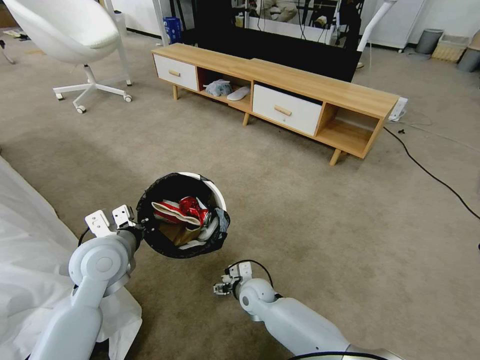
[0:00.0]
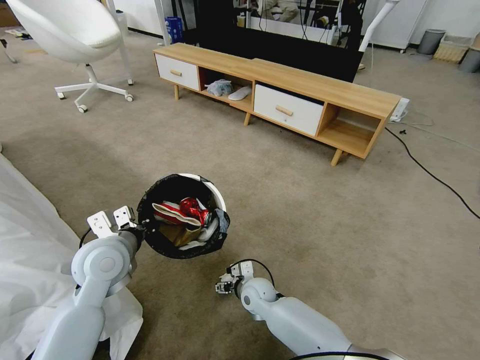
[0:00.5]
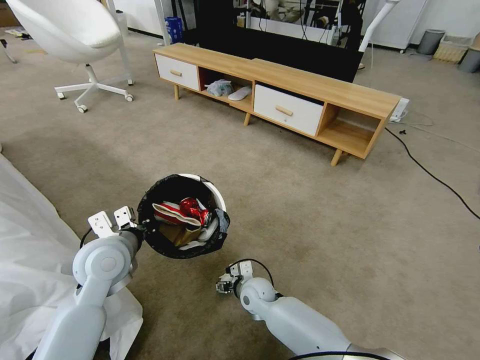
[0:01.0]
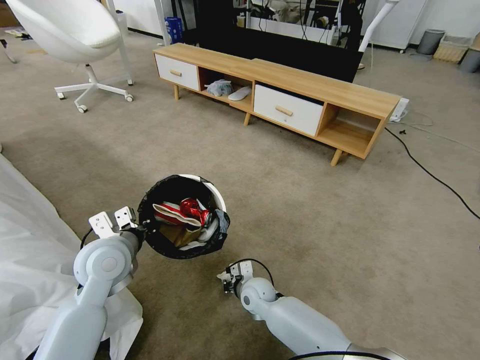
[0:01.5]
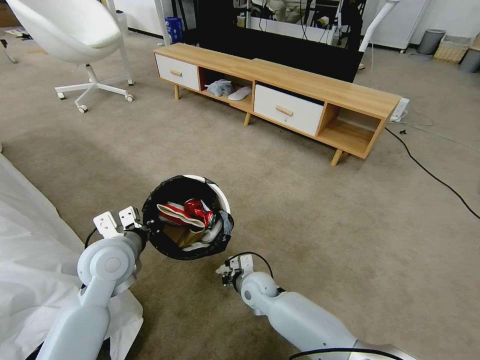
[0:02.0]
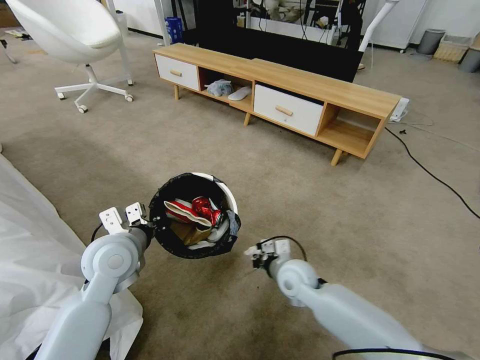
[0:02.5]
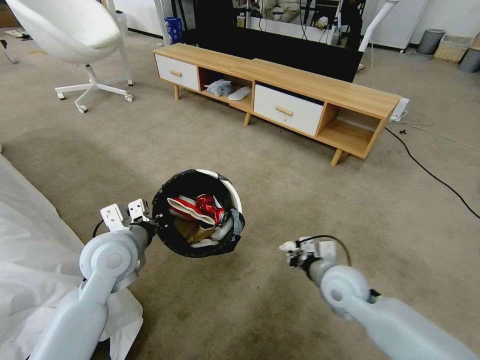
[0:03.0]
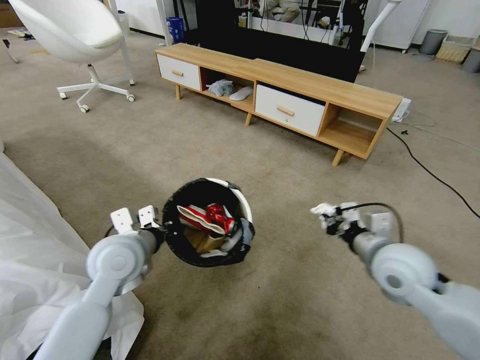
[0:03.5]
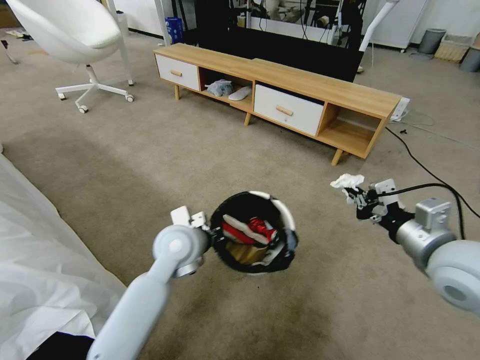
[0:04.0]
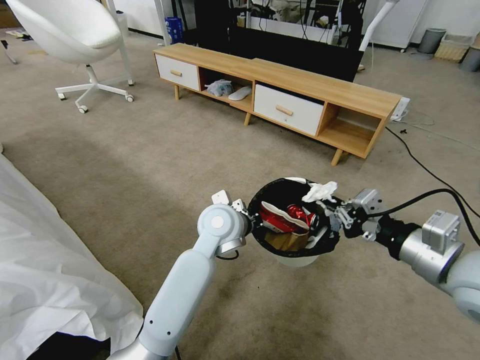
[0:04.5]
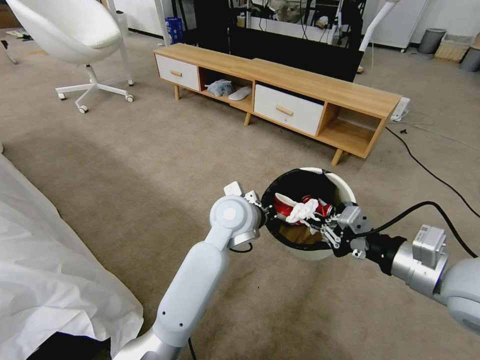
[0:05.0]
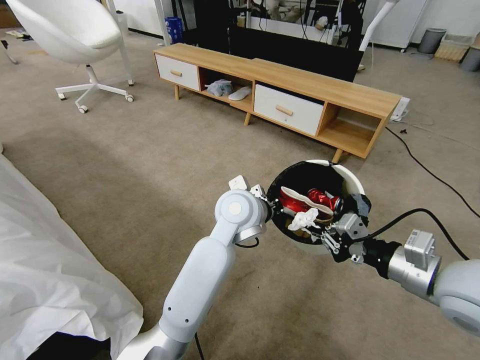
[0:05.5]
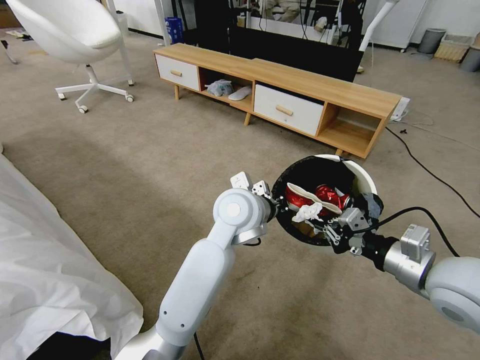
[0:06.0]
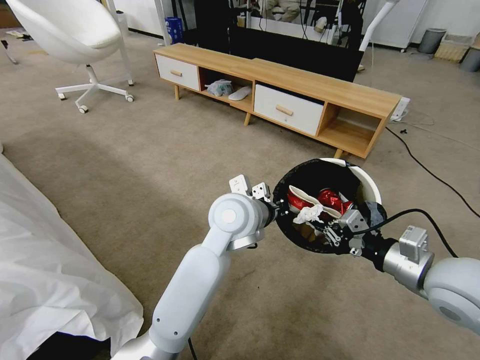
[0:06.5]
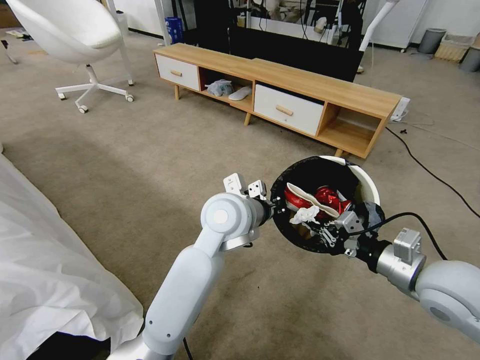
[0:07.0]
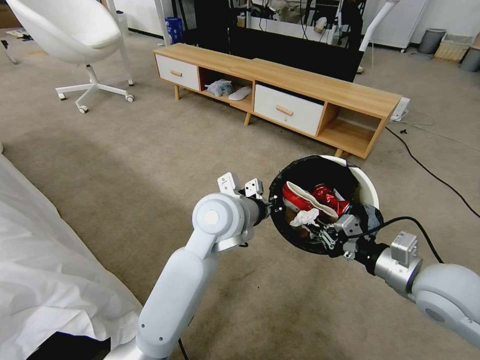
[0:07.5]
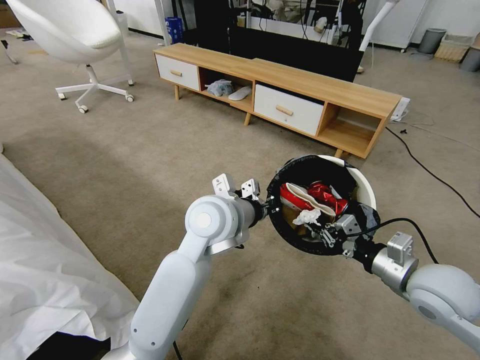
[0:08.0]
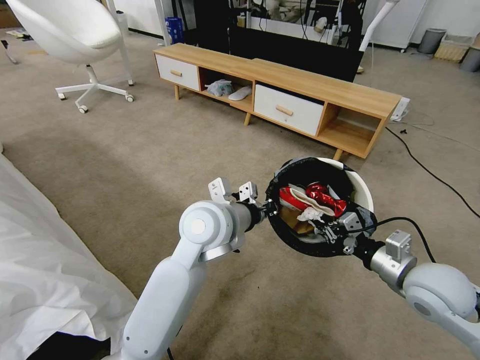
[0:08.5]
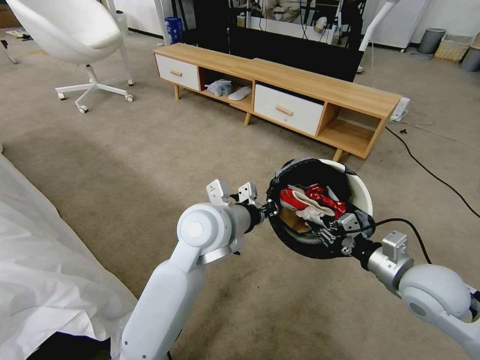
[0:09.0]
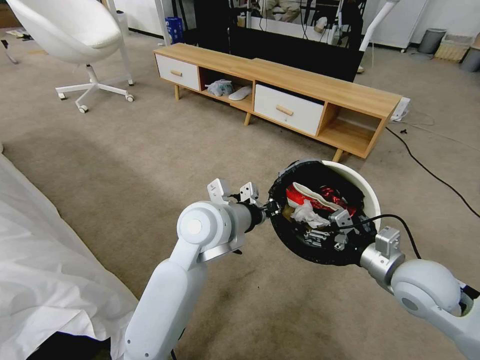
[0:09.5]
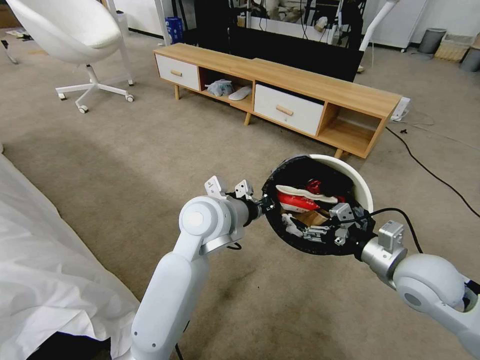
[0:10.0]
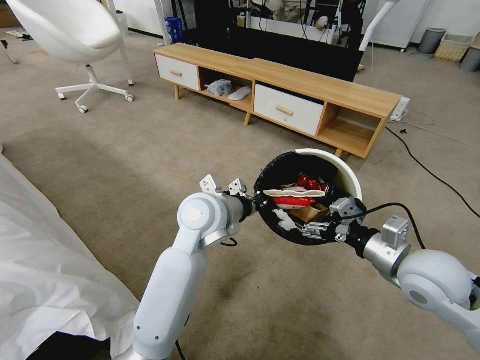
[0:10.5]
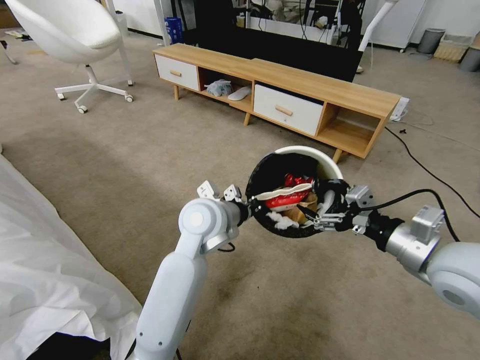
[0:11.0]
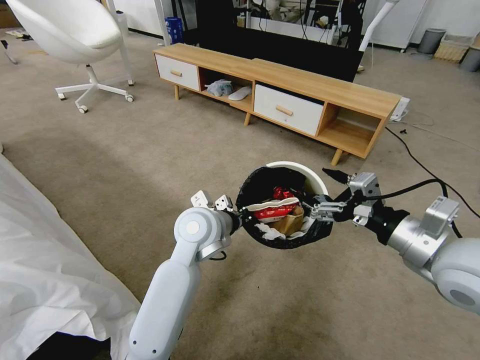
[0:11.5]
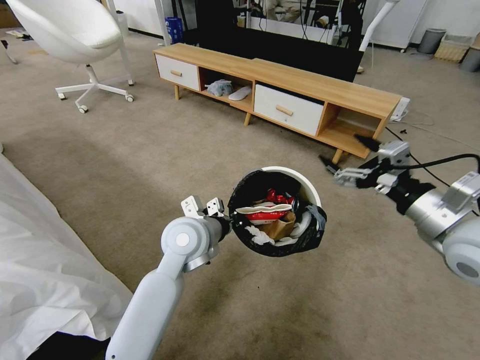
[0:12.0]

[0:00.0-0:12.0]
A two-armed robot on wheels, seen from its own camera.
Task of the whole recording: Pick up the trash bin and place the garbage on the floor into it.
0:00.0 to 0:02.0: The right gripper closes its fingers.
0:02.0 to 0:04.0: The right gripper heads upward and to the right, covering approximately 40 cm; the left gripper travels to the right by some 15 cm.
0:04.0 to 0:06.0: The left gripper goes about 15 cm to the right and upward.
0:06.0 to 0:08.0: The right gripper goes roughly 5 cm downward. The left gripper ends up some 5 cm from where it was.
0:08.0 to 0:10.0: The right gripper opens.
0:10.0 to 0:12.0: The right gripper is displaced upward by approximately 10 cm. Meanwhile the left gripper heads downward, covering roughly 5 cm.

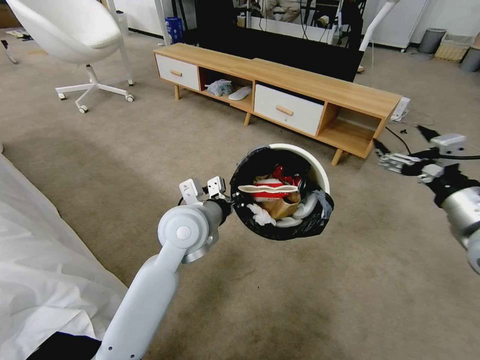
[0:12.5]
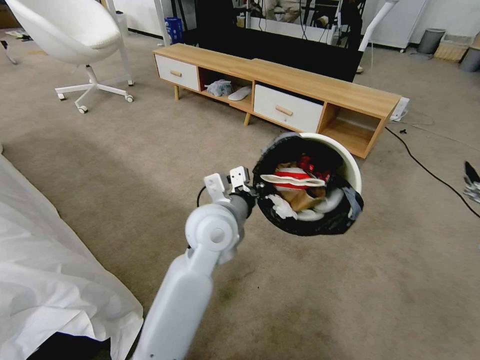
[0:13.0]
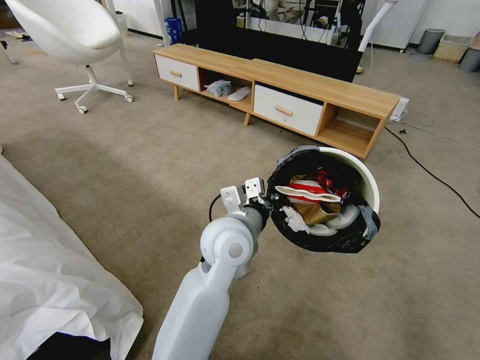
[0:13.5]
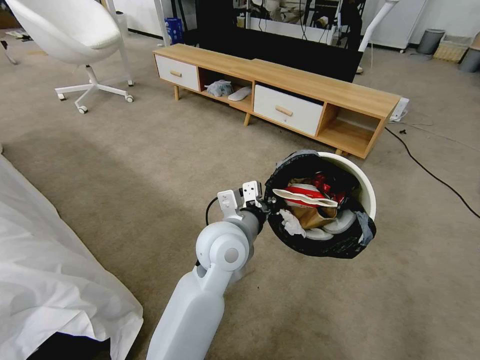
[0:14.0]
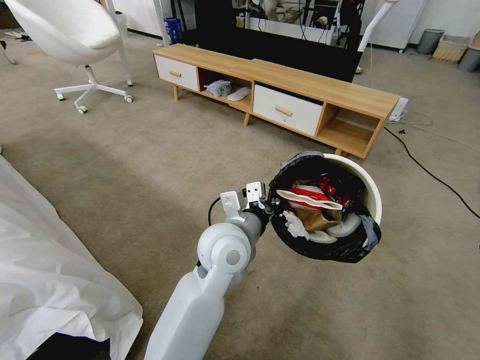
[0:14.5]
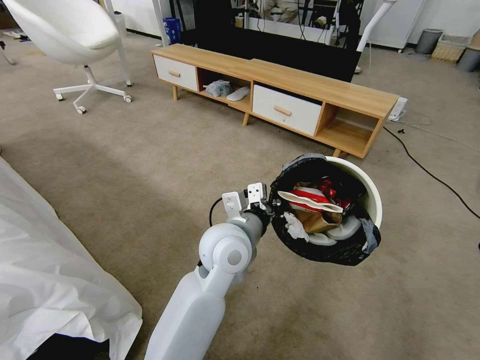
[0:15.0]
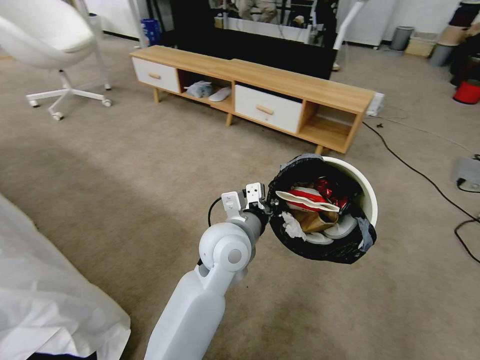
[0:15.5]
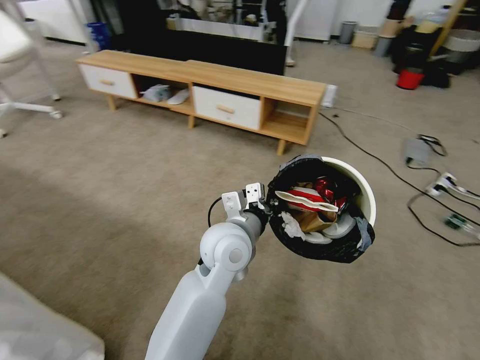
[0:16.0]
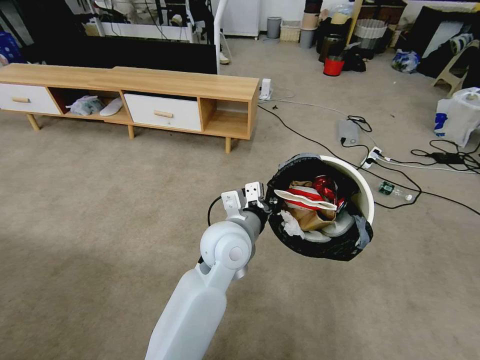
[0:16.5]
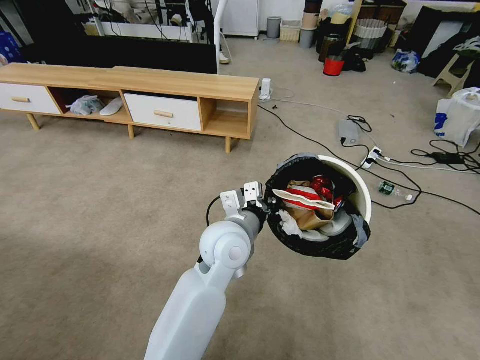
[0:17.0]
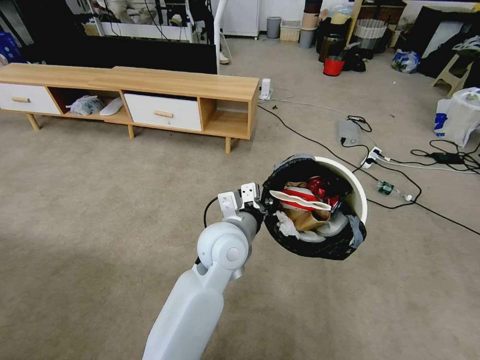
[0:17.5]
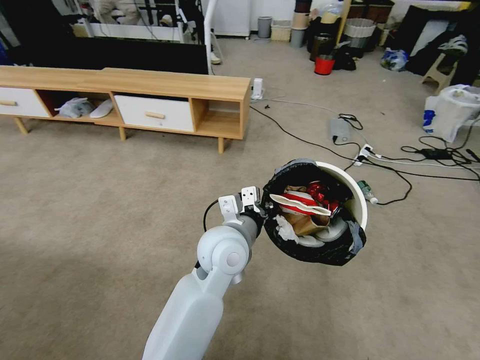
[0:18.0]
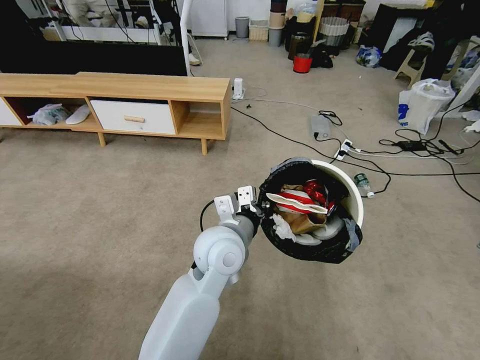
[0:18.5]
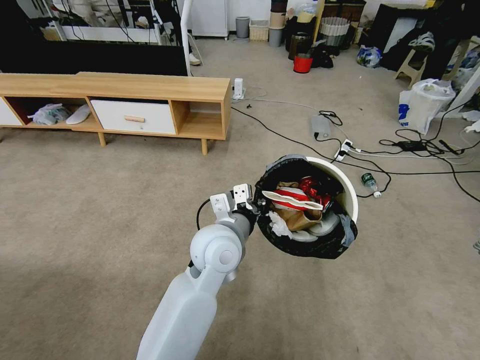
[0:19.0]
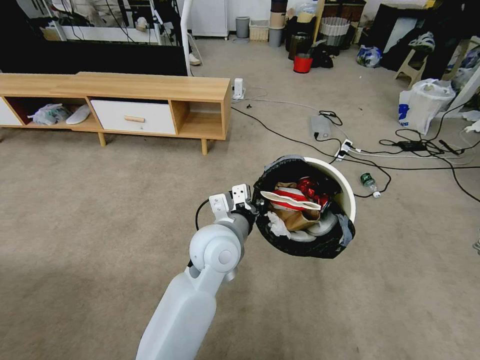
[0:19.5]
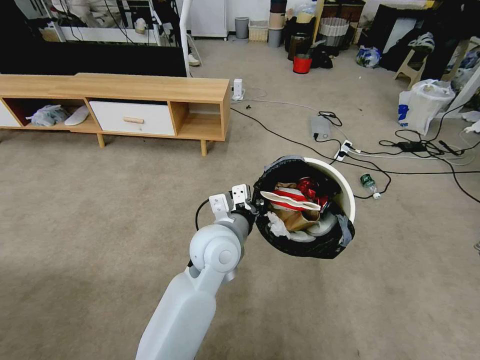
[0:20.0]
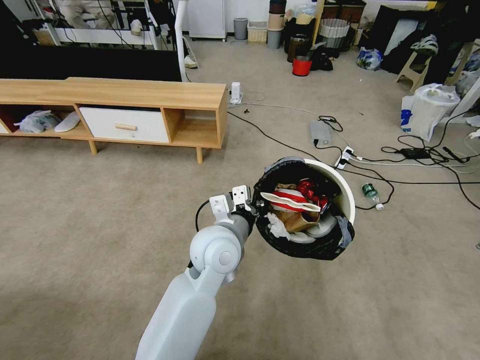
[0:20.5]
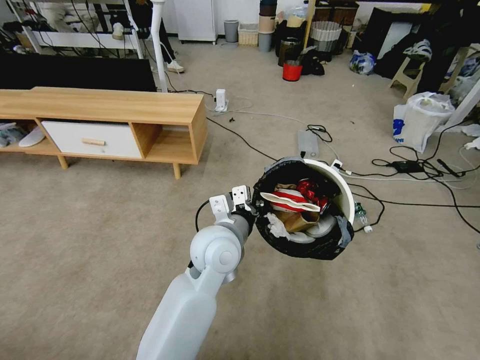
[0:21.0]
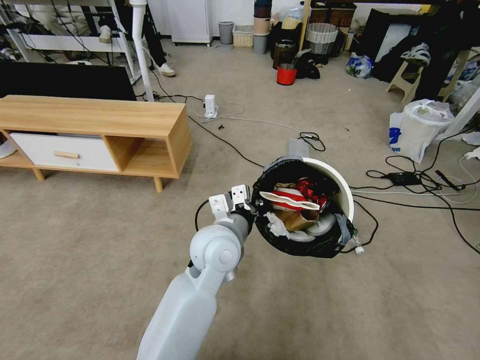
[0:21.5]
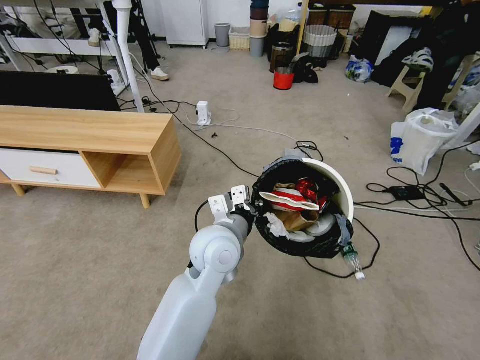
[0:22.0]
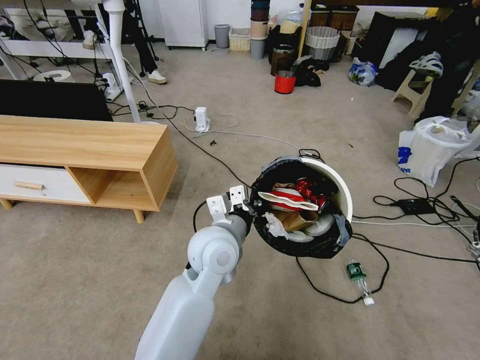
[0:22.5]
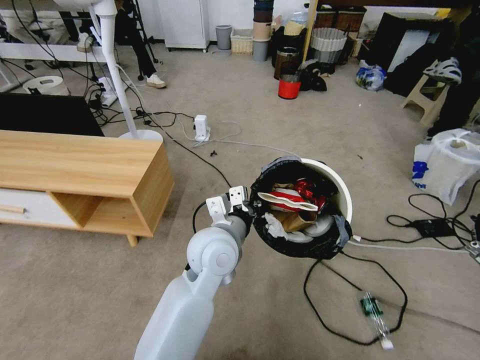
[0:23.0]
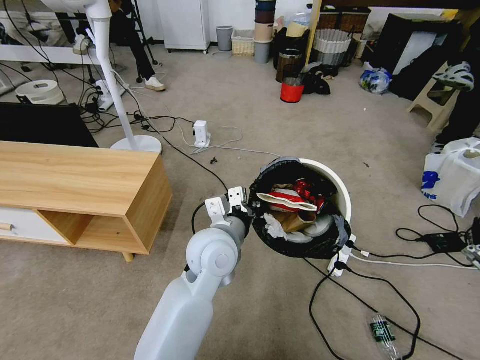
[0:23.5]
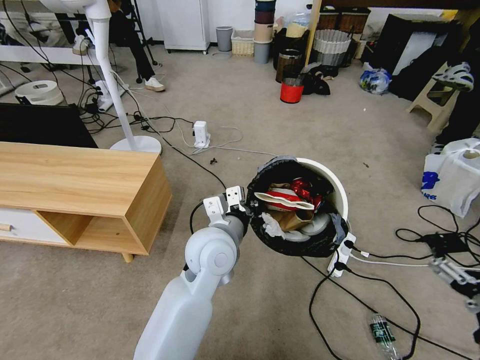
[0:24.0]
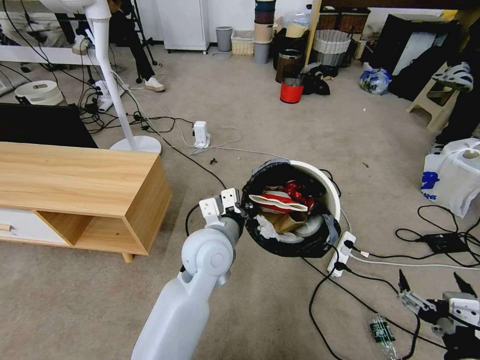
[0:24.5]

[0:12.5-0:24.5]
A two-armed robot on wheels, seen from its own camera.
Task of the whole recording: Pick up the trash bin and place the garbage on the floor into it.
0:12.5 to 0:14.5: The right gripper travels backward by some 20 cm. The left gripper heads to the right, covering approximately 10 cm.
0:22.5 to 0:24.5: The right gripper shifts about 5 cm downward.

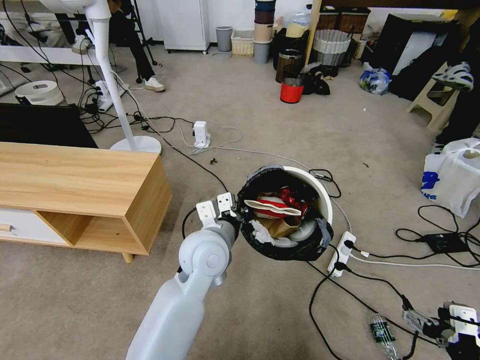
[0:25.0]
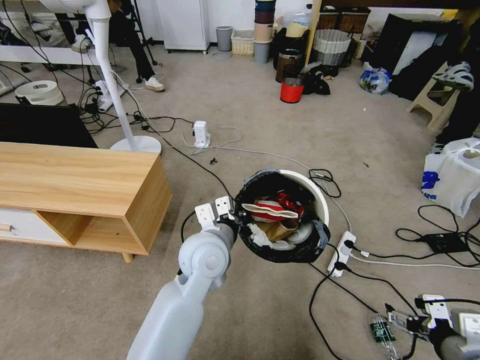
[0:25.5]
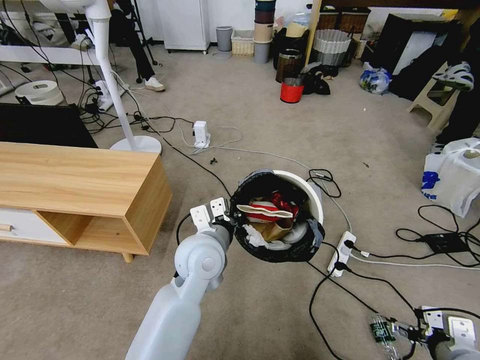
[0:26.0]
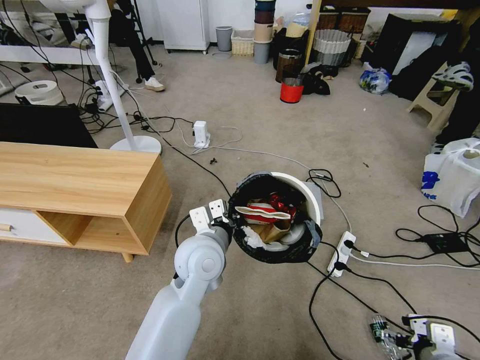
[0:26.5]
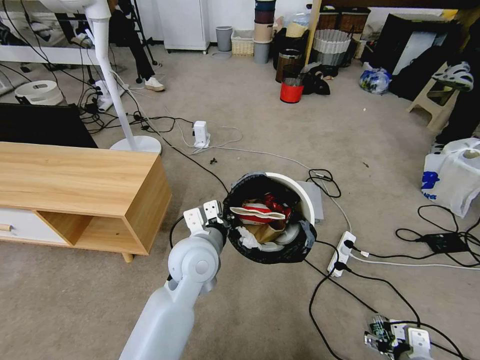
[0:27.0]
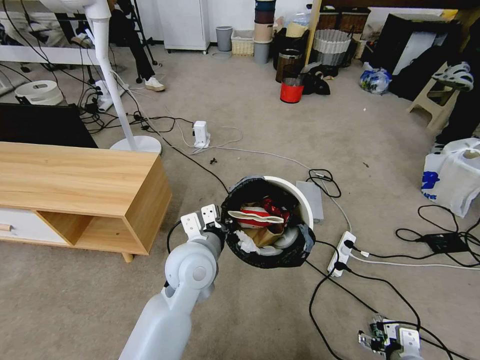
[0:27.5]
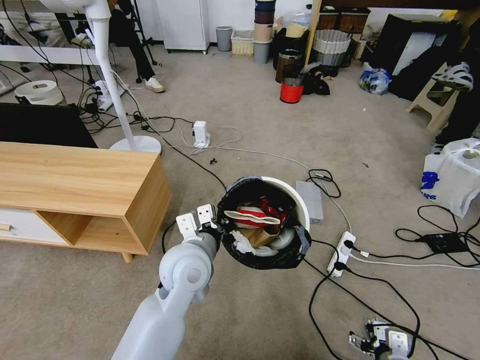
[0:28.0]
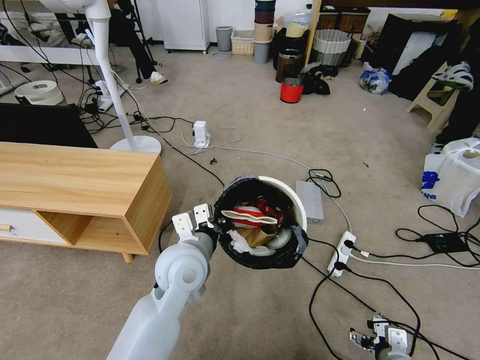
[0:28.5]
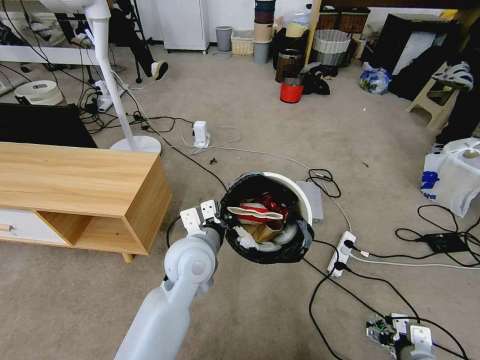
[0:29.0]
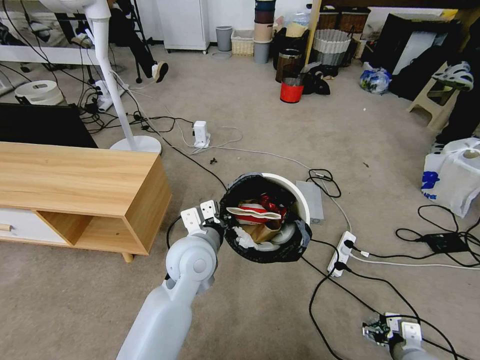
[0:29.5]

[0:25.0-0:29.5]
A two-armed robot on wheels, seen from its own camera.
Task of the whole recording: Pick up the trash bin and place the garbage on the floor into it.
0:25.0 to 0:27.0: The right gripper is displaced downward and forward by approximately 15 cm.
0:27.0 to 0:29.5: The right gripper ends up some 5 cm from where it was.
